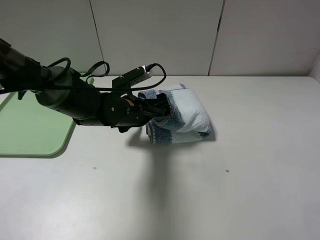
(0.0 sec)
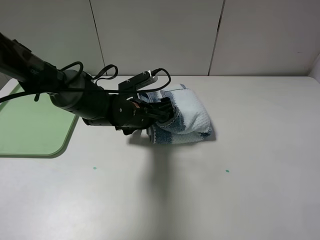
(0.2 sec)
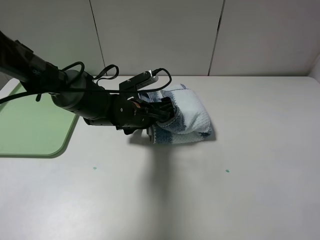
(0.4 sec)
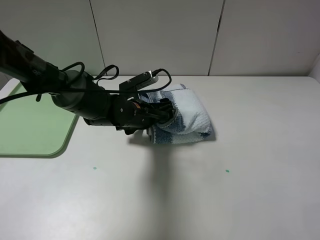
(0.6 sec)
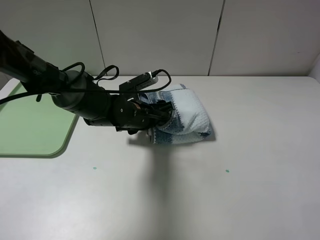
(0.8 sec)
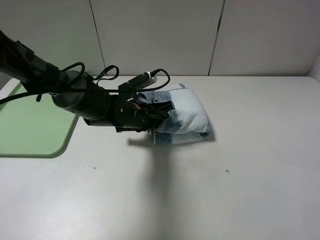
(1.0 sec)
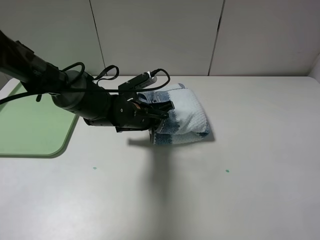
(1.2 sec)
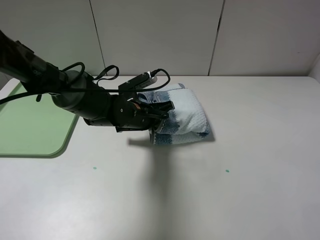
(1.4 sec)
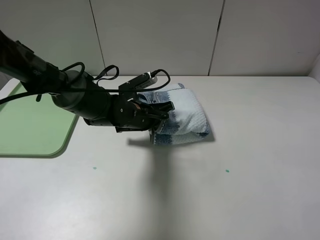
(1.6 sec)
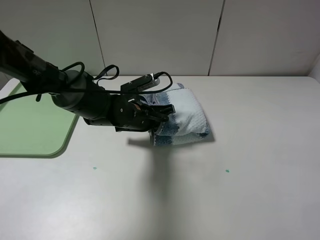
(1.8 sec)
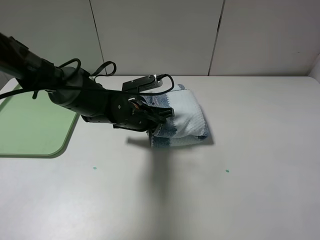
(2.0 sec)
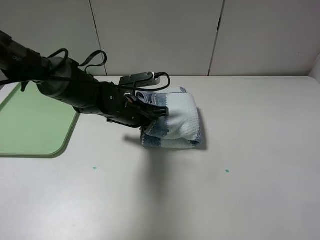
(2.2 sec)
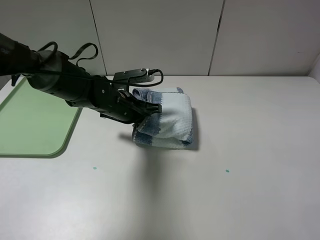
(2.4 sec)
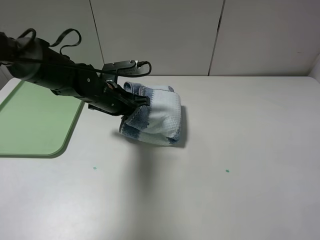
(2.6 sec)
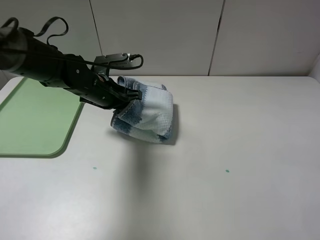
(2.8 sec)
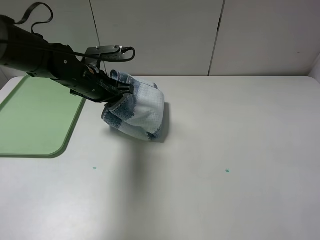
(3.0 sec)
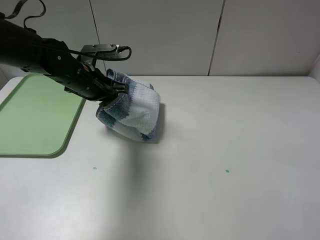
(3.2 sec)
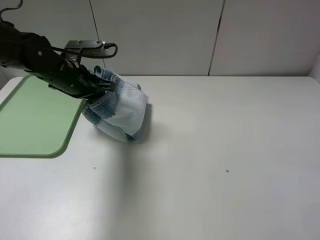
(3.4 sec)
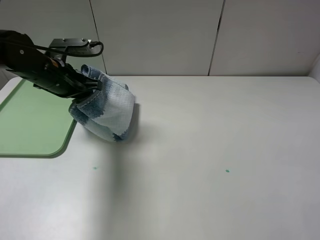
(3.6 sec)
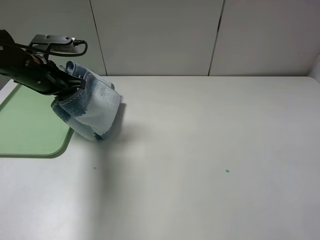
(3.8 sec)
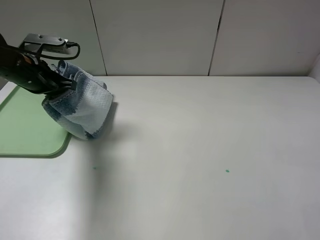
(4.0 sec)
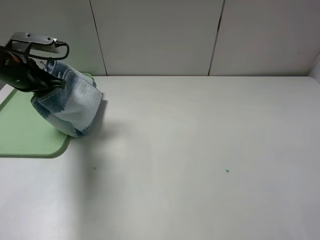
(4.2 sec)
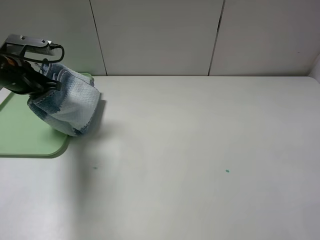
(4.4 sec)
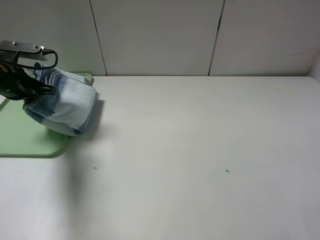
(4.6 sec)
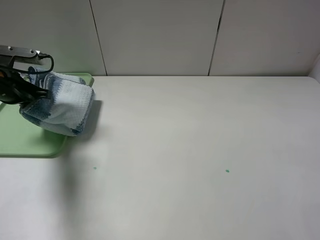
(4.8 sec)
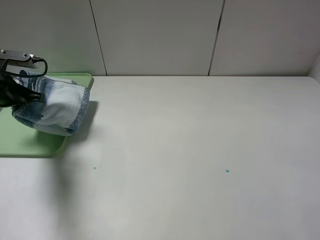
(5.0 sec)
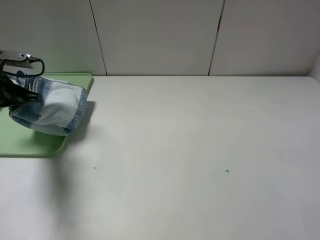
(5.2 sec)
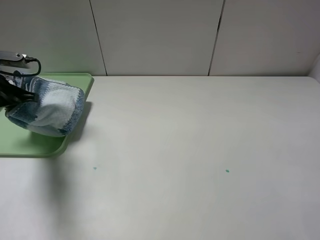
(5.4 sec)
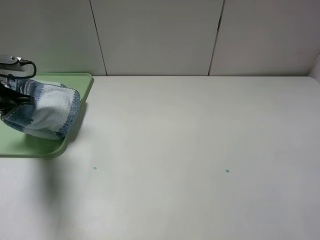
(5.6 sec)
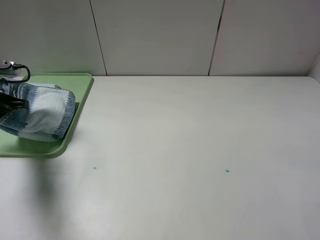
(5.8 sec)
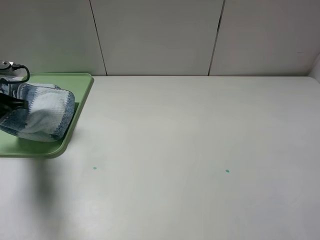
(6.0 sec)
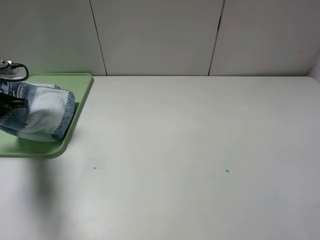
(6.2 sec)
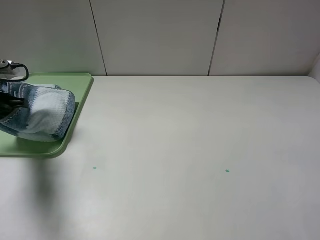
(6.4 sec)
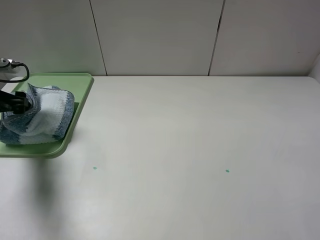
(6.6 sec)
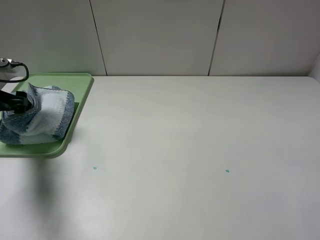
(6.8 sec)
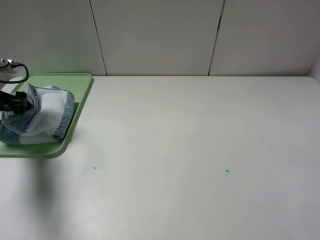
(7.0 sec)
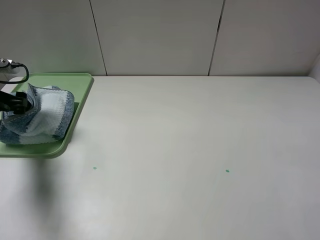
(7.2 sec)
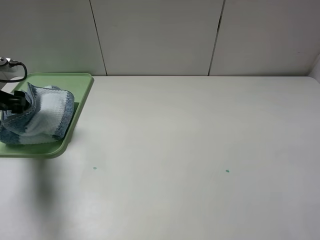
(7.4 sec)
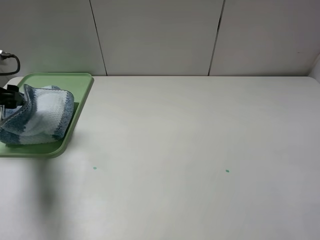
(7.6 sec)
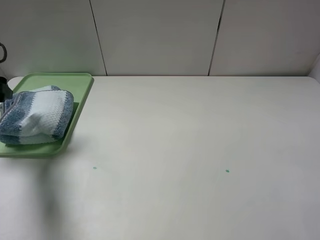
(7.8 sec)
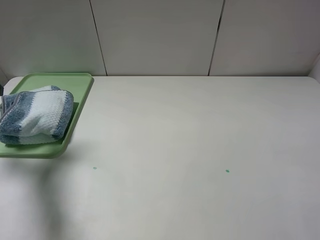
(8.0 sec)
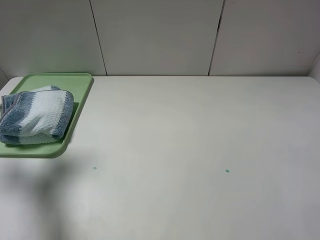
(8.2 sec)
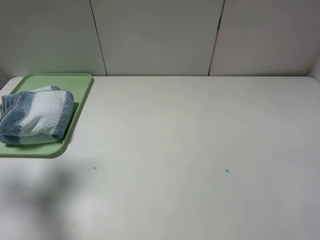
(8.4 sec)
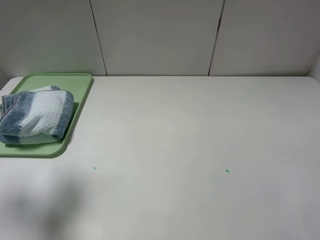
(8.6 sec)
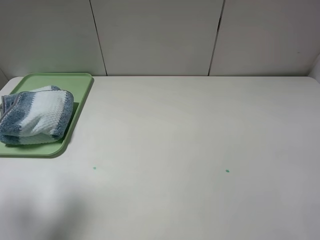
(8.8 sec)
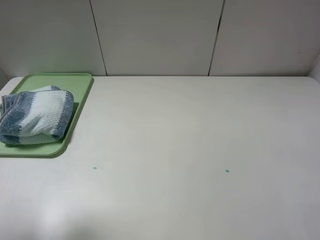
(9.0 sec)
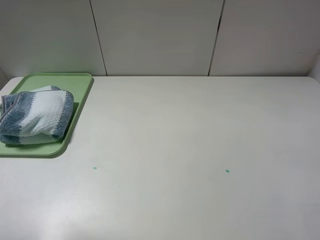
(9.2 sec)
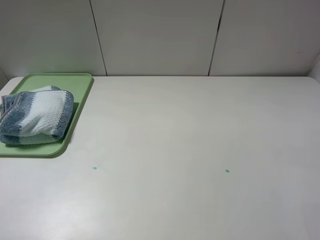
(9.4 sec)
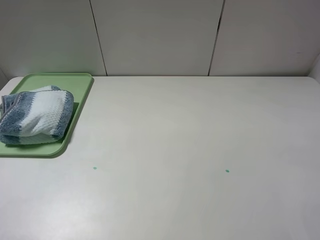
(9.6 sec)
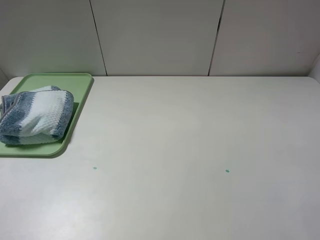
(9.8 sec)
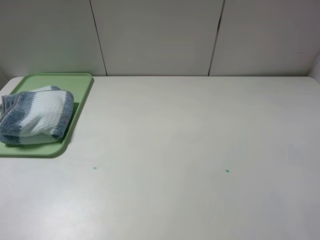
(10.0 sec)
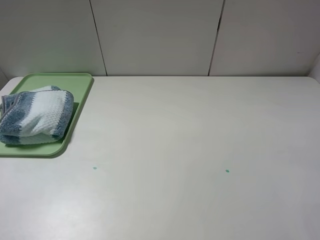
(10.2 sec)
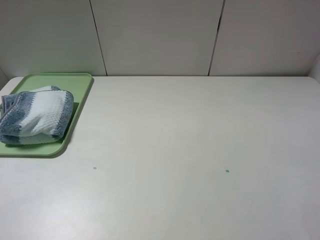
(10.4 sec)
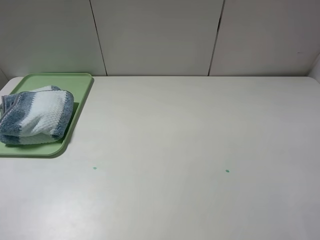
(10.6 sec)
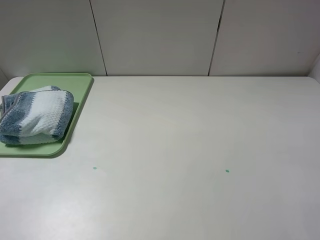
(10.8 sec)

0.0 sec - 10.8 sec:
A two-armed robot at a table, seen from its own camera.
Step, 0.0 sec - 2.0 sec: Grasp the blue white towel with the left gripper.
0.0 sec - 1.6 sec: The left gripper closes its fingers.
1.6 sec - 3.0 sec: The left gripper moves to the left and upward, some 10 cm.
3.0 sec - 4.6 sec: The left gripper shifts roughly 15 cm to the left.
4.6 sec - 6.2 sec: The left gripper travels to the left by about 5 cm.
6.2 sec - 7.8 sec: The left gripper moves upward, roughly 5 cm, and opens its fingers.
7.8 sec - 9.2 sec: The left gripper goes approximately 25 cm backward and upward.
